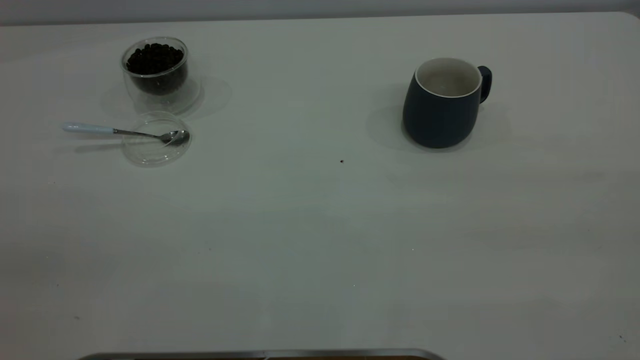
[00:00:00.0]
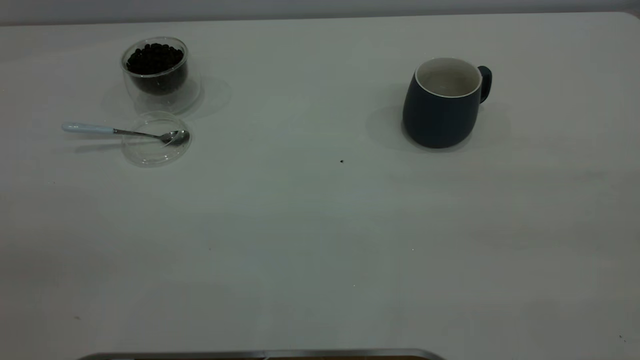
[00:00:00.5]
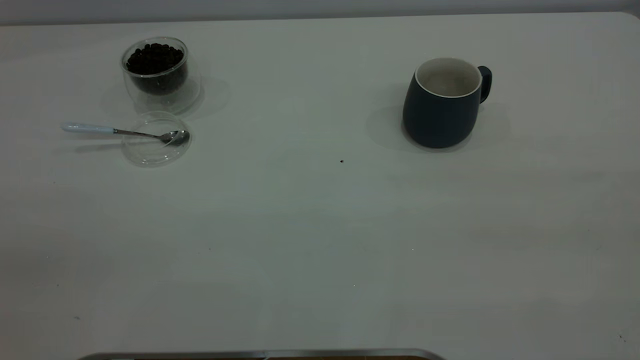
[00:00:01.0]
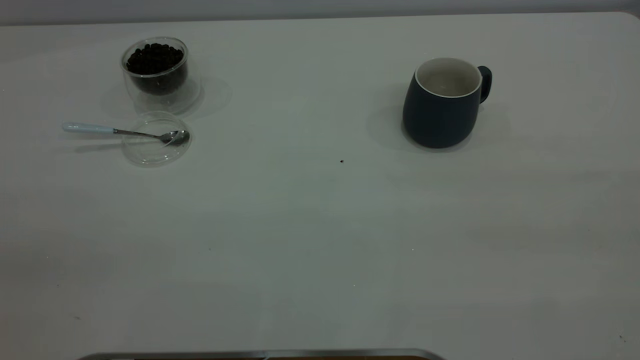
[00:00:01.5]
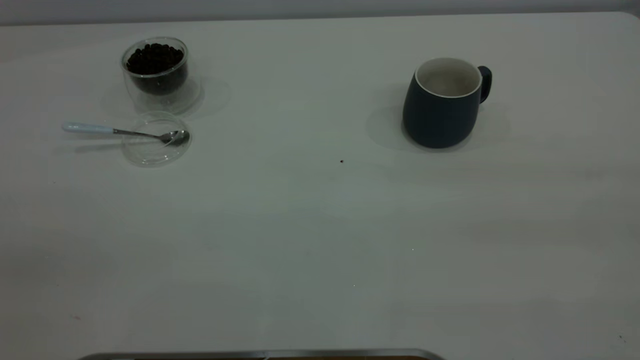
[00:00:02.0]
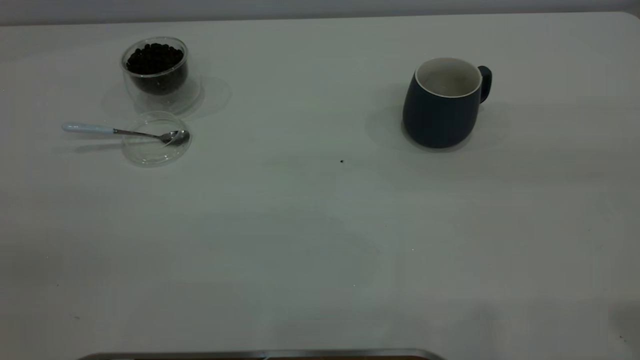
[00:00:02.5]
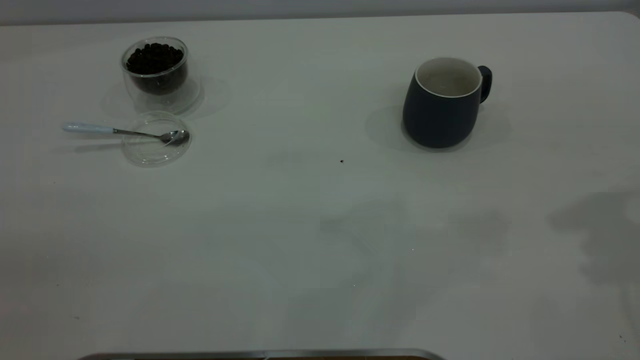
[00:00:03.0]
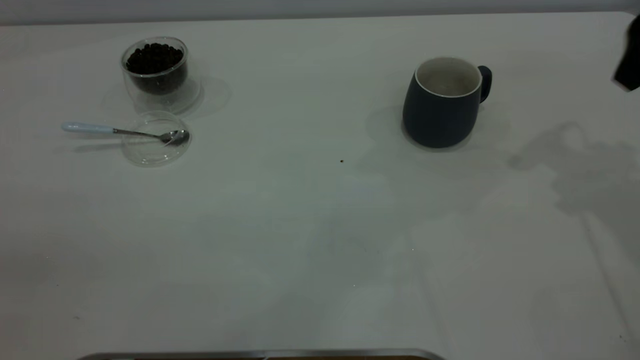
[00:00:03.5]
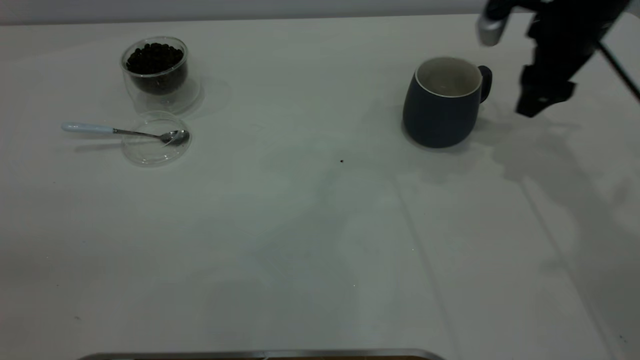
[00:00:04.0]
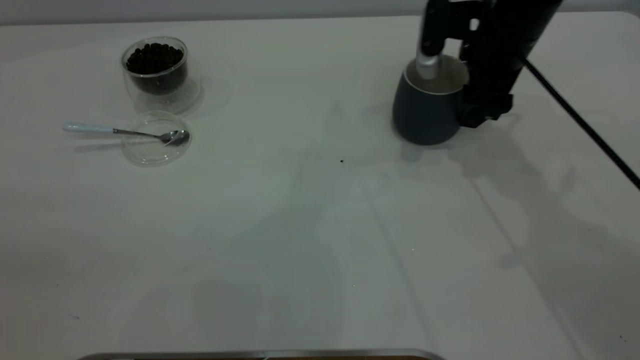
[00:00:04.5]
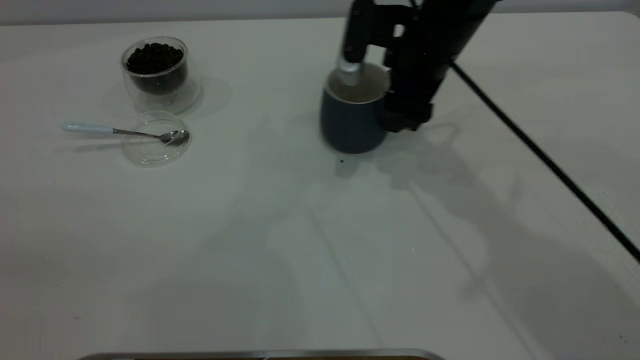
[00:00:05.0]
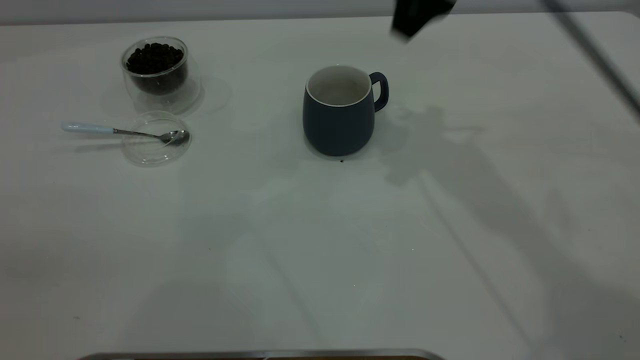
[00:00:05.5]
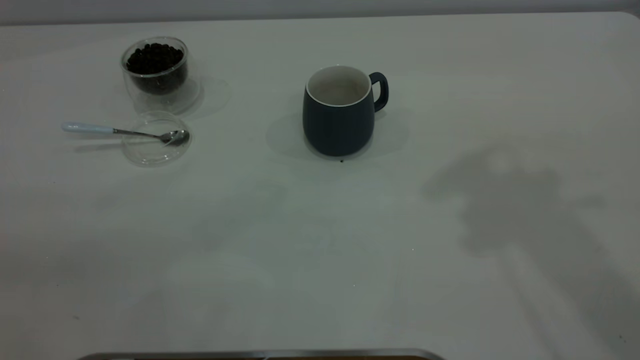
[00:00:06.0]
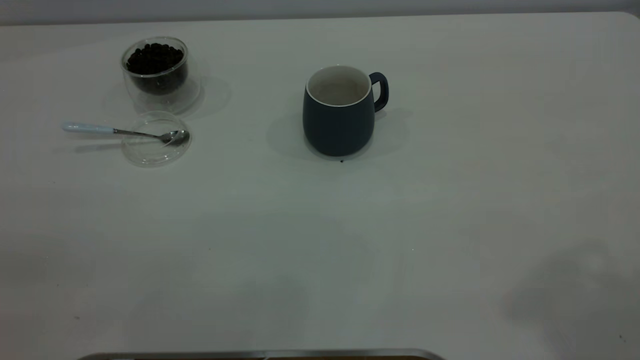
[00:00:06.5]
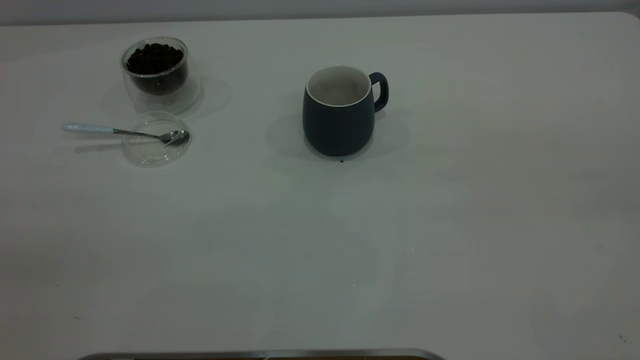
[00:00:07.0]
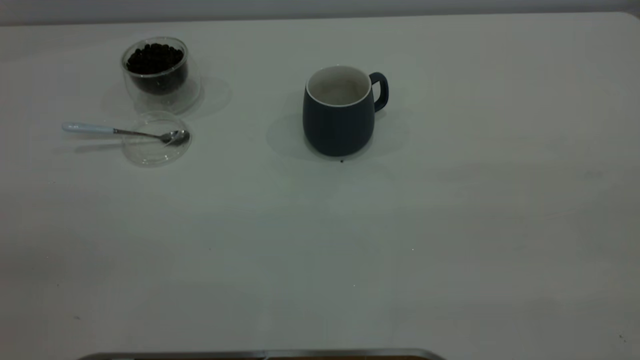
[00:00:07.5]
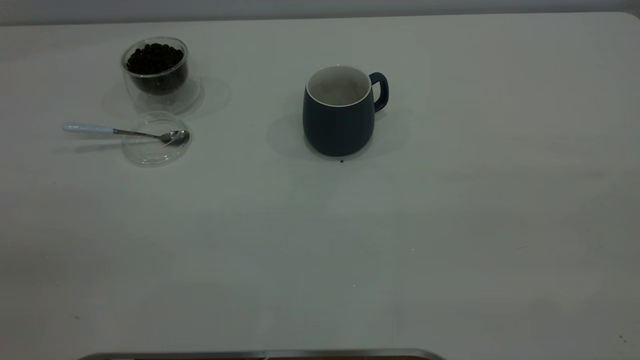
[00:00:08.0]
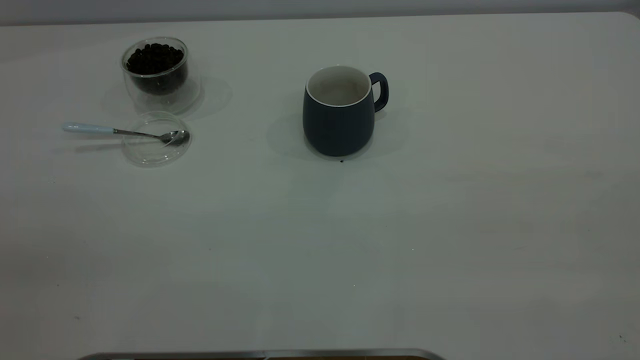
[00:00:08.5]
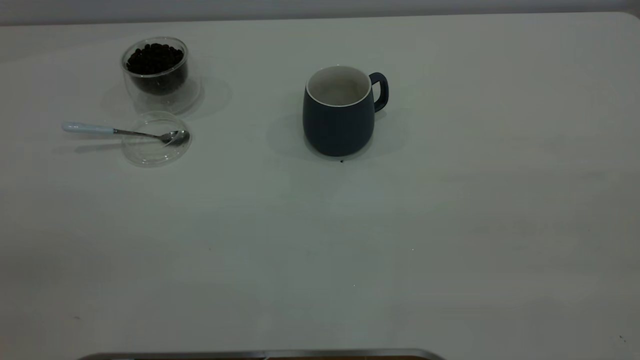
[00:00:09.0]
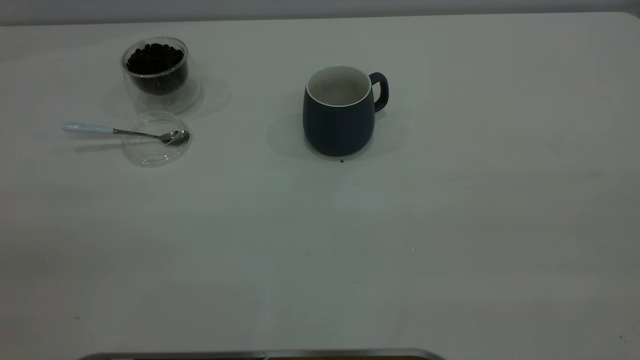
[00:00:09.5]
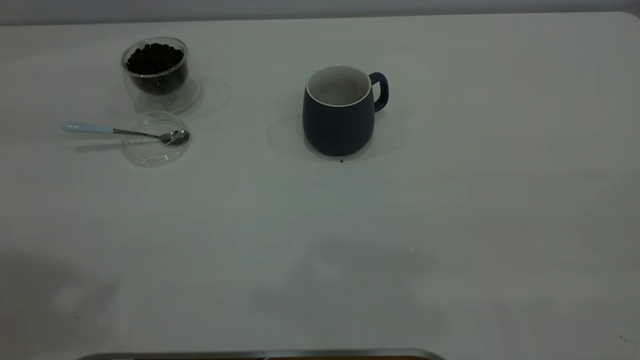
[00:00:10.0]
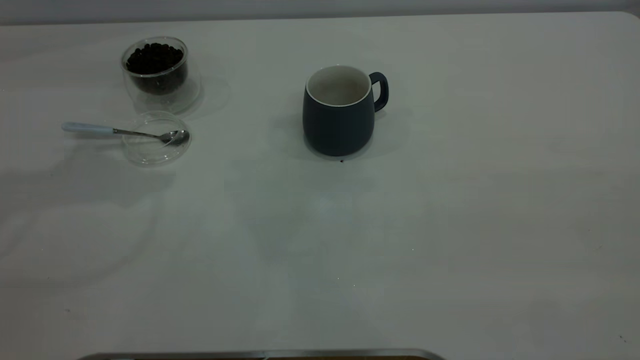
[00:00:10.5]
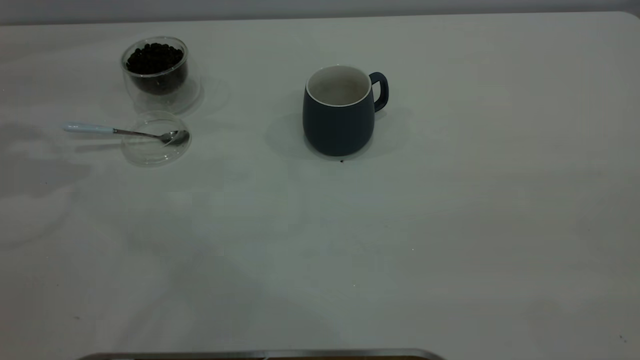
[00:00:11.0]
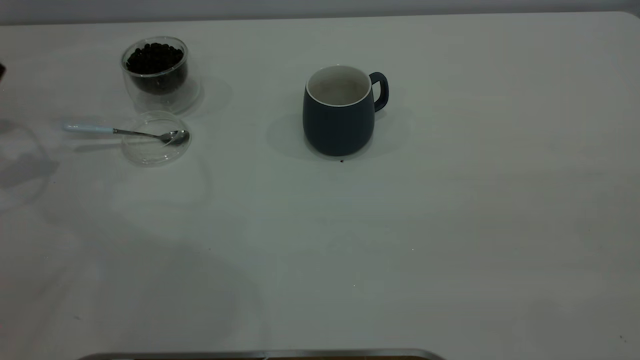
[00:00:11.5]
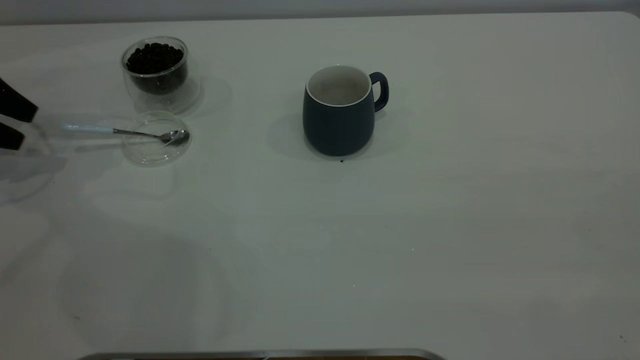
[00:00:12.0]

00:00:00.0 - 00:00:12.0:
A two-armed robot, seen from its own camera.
Task of the whole recording: the right gripper place the grey cup in the center of the table, the left gripper take the blue spoon from the cup lid and scoop out the coffee beans from the coffee cup and put them into the grey cup, the left gripper put the spoon back into the cup lid.
Step, 00:00:00.0 - 00:00:05.0: Move the cup to the center of view.
00:00:02.0 - 00:00:04.0: The right gripper shifts some 50 cm forward and downward, and opens up.
00:00:04.0 - 00:00:06.0: The right gripper is displaced upward and backward by some 35 cm.
00:00:10.0 - 00:00:12.0: The left gripper goes about 40 cm downward, forward and to the left.

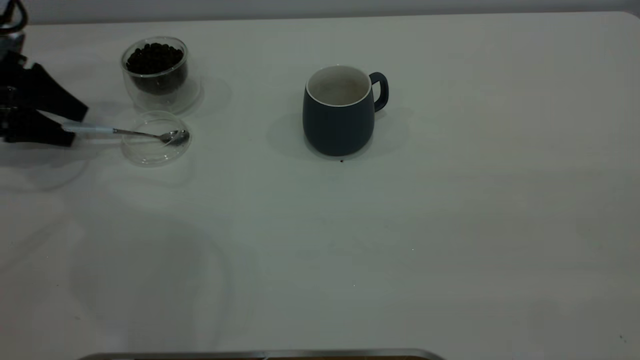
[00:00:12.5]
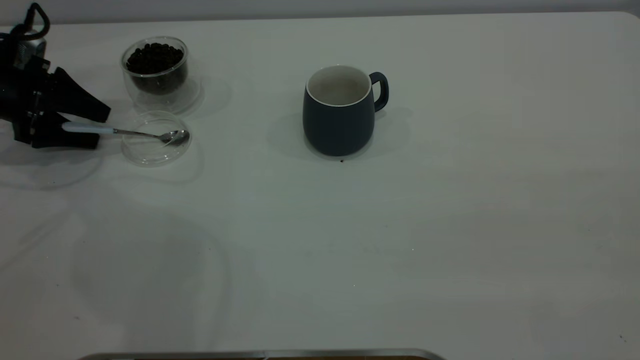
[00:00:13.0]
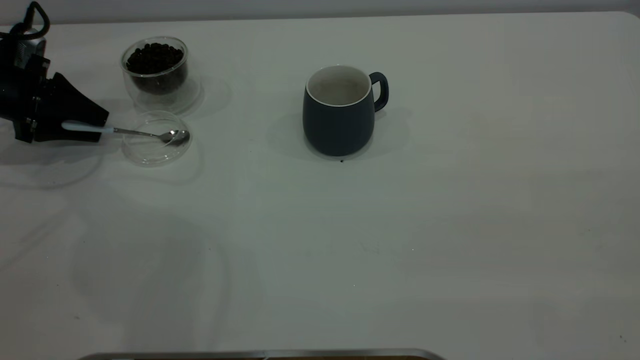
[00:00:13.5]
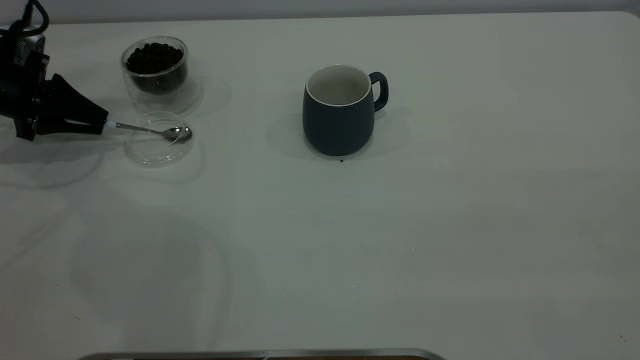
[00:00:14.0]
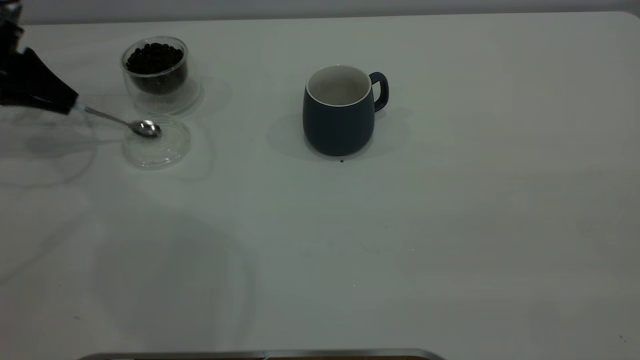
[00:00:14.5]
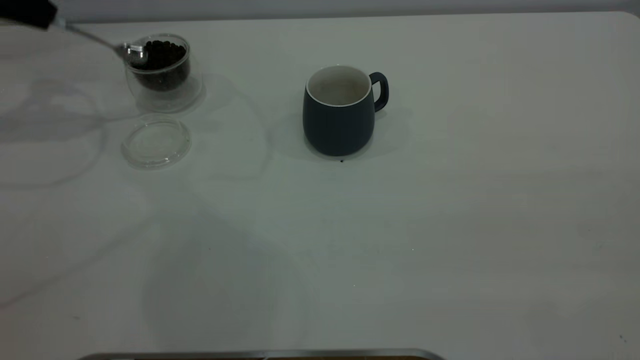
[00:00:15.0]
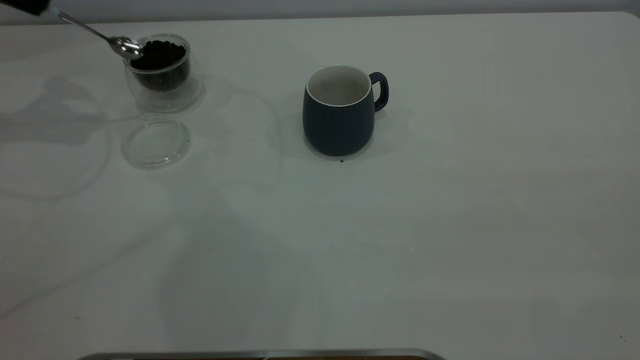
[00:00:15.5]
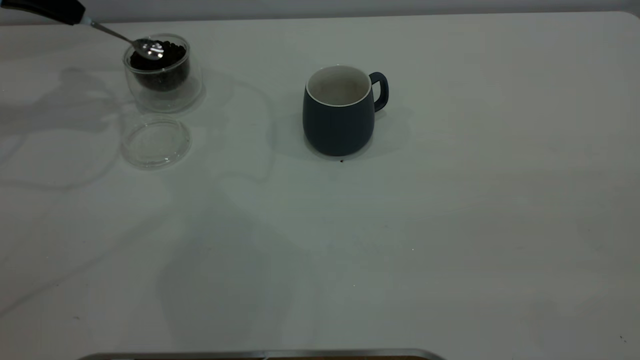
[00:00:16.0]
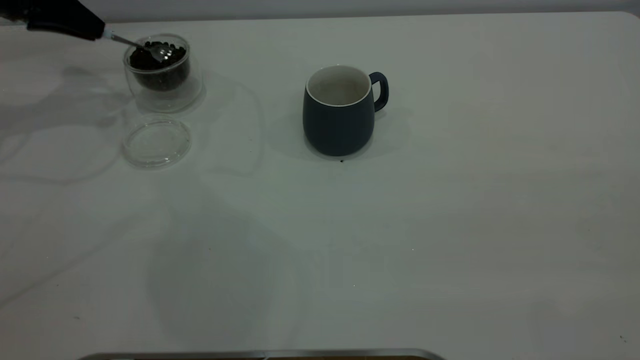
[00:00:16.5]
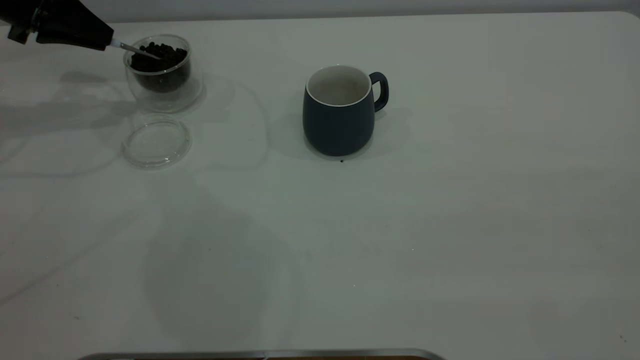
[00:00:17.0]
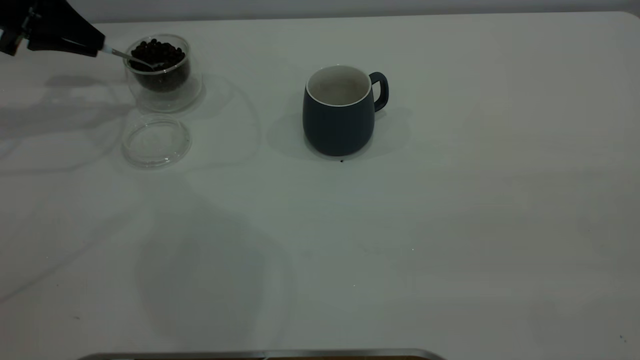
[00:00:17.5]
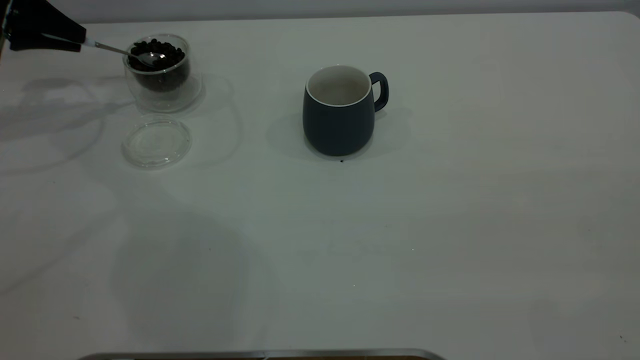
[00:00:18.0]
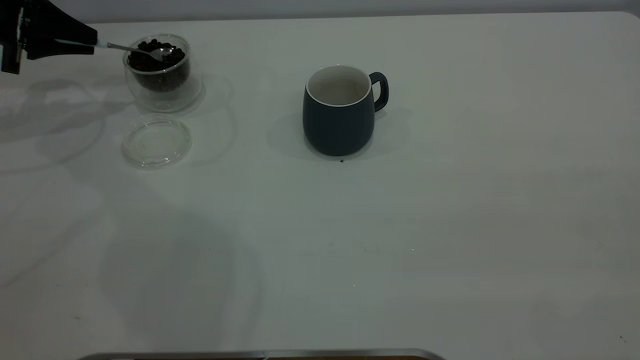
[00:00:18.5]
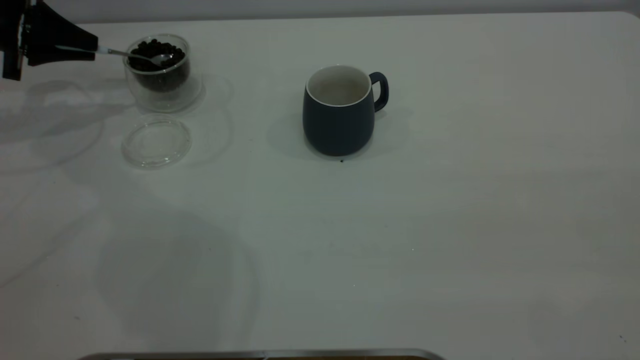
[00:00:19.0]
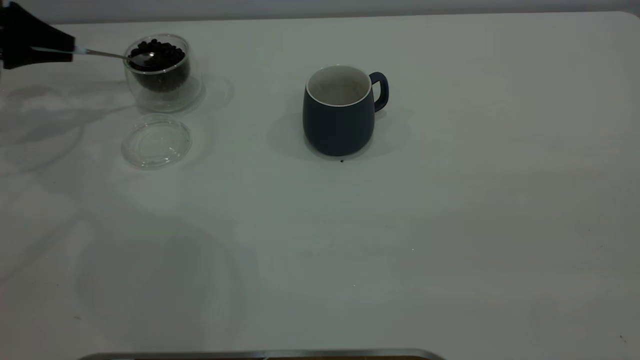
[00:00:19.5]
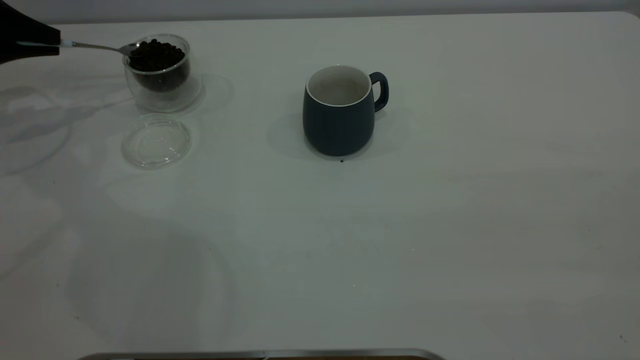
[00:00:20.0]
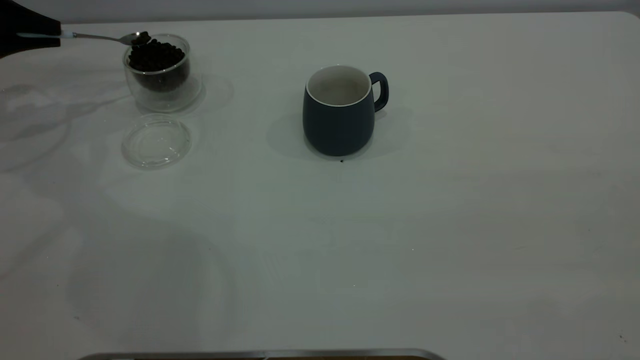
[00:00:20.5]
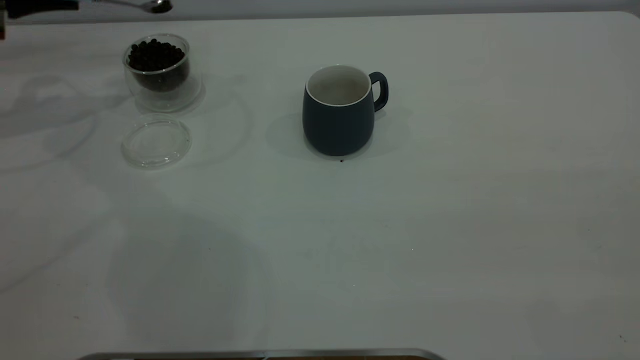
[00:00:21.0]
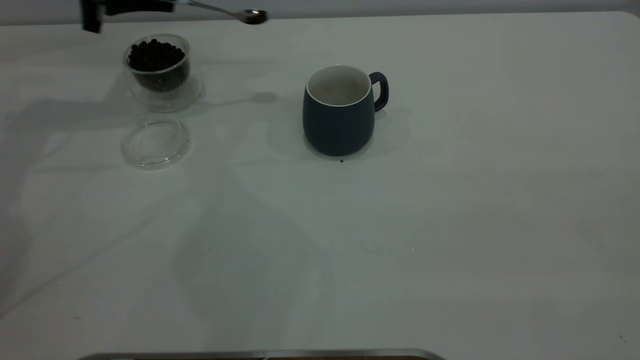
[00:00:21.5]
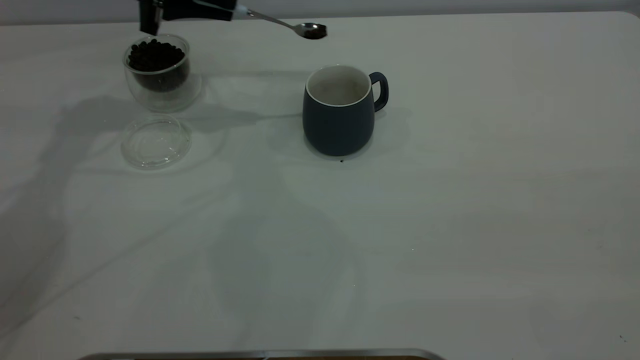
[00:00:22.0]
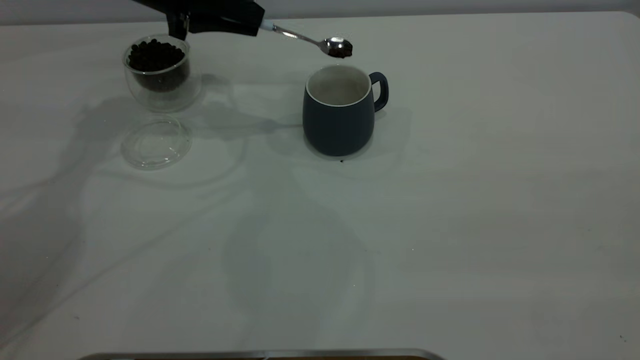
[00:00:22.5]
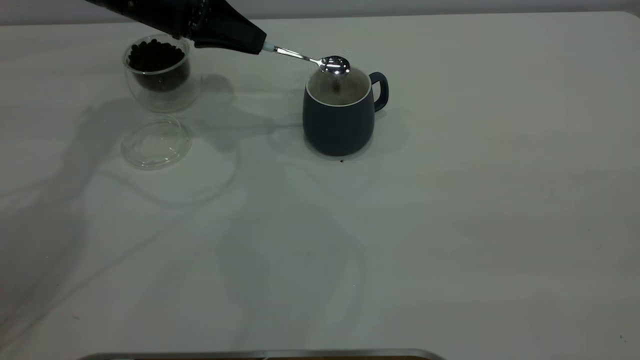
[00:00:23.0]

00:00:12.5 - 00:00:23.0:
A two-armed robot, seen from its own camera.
Task of the whole recording: the right gripper place the grey cup in the center of the table, the left gripper take the blue spoon from the cup lid and scoop out the coffee beans from the coffee cup and put them into the grey cup, the left gripper put the spoon back into the cup lid.
Step, 00:00:12.5 - 00:00:14.5: Pick up the spoon.
00:00:12.5 - 00:00:14.5: The left gripper closes up.
00:00:14.5 - 00:00:16.5: The left gripper heads upward, covering roughly 5 cm.
00:00:16.5 - 00:00:19.0: The left gripper ends up about 5 cm from where it was.
00:00:19.0 - 00:00:21.0: The left gripper is displaced upward by about 5 cm.
00:00:21.0 - 00:00:23.0: The left gripper heads to the right, covering approximately 20 cm.
